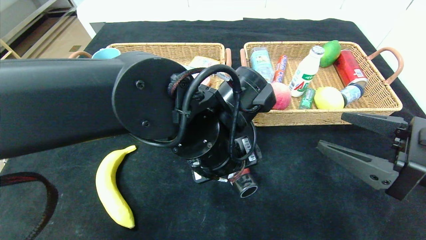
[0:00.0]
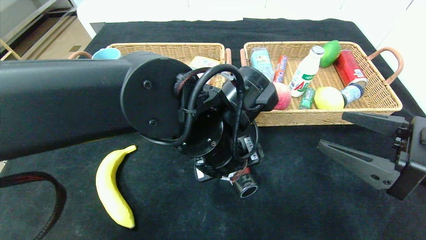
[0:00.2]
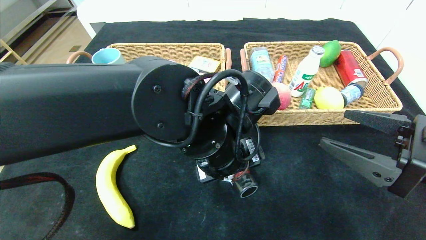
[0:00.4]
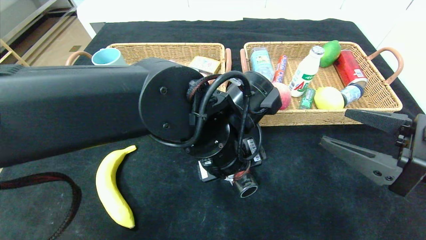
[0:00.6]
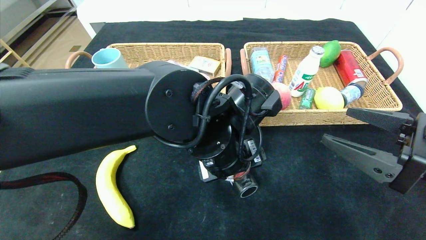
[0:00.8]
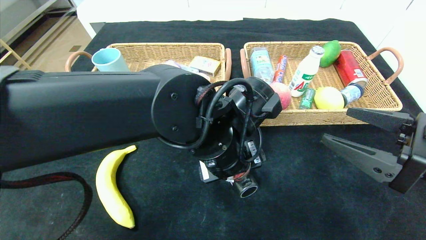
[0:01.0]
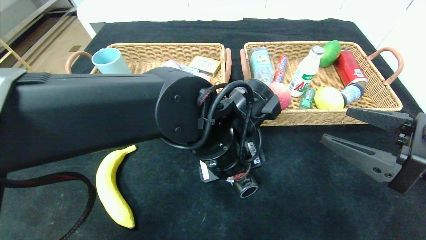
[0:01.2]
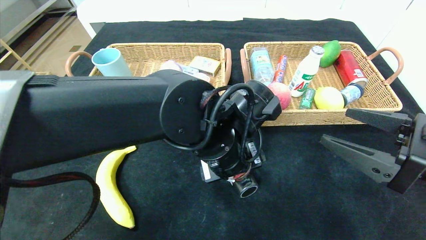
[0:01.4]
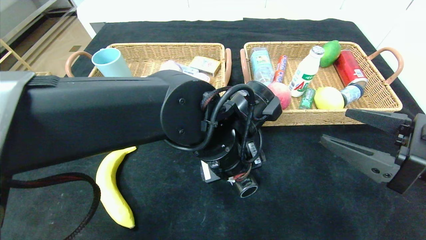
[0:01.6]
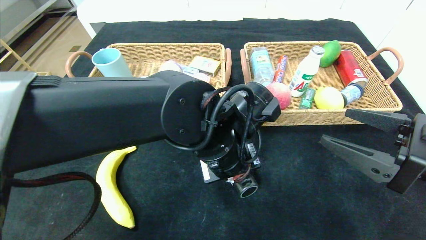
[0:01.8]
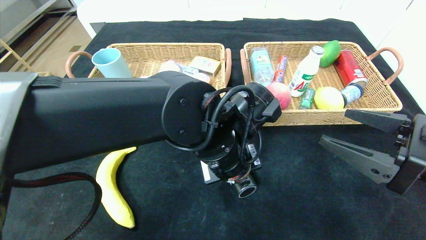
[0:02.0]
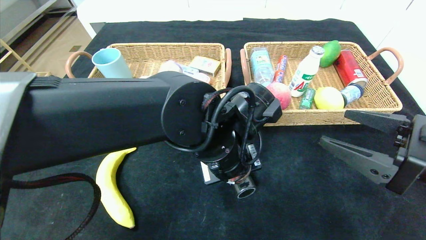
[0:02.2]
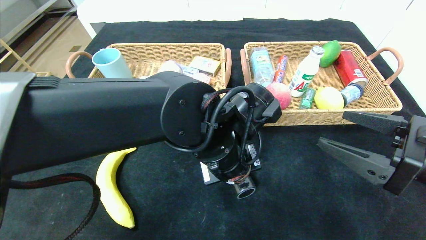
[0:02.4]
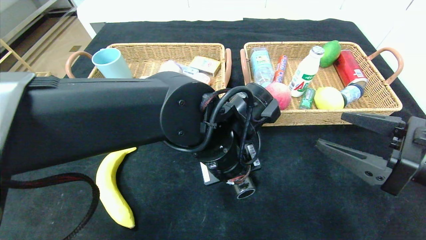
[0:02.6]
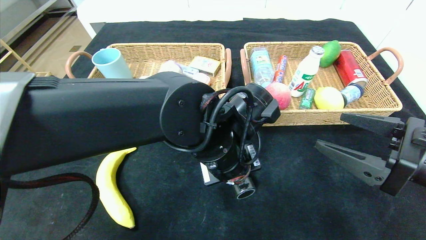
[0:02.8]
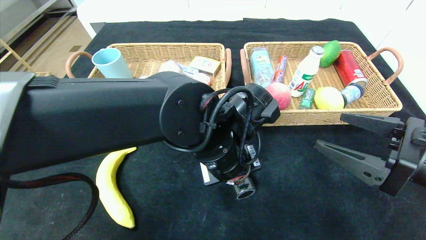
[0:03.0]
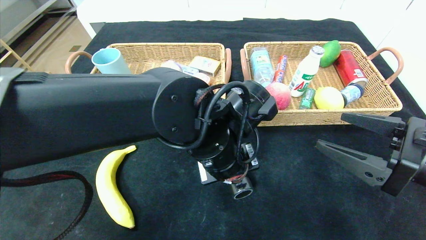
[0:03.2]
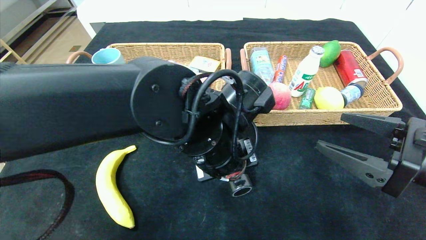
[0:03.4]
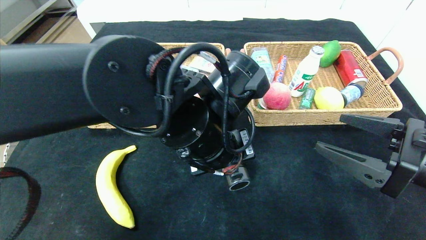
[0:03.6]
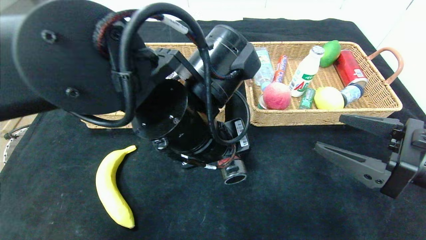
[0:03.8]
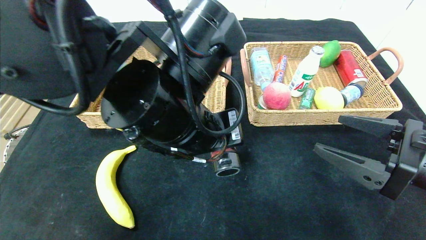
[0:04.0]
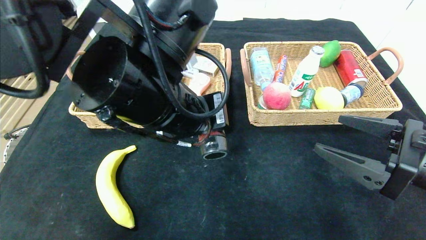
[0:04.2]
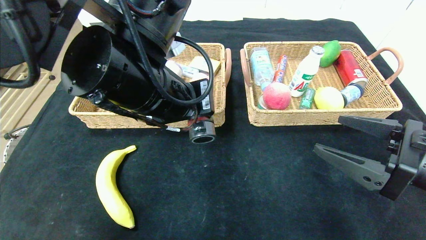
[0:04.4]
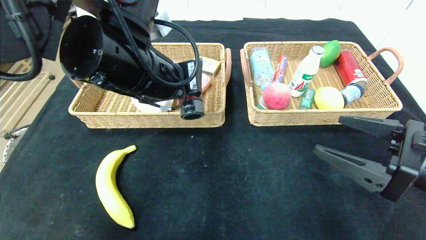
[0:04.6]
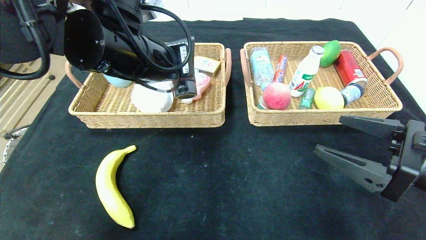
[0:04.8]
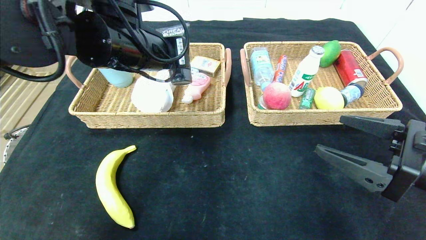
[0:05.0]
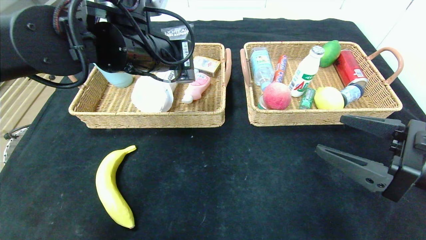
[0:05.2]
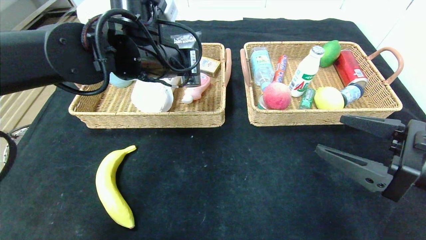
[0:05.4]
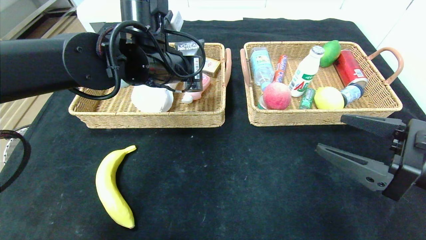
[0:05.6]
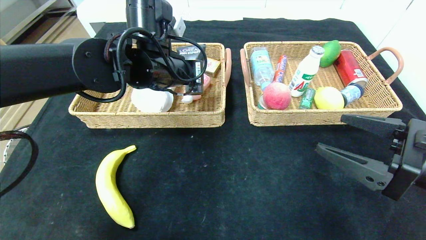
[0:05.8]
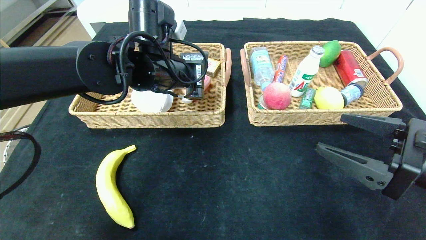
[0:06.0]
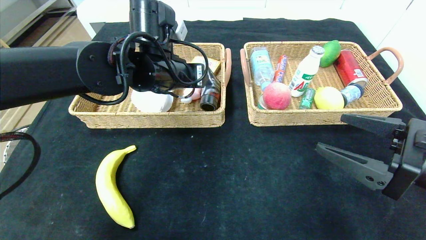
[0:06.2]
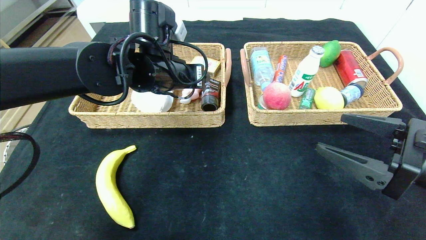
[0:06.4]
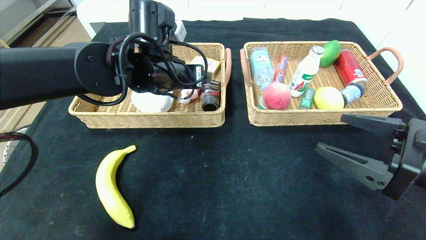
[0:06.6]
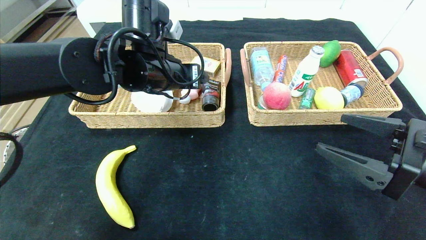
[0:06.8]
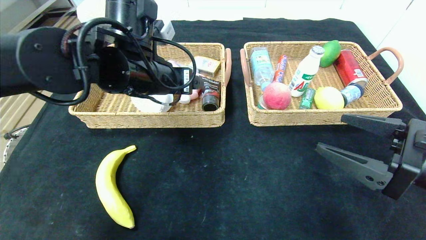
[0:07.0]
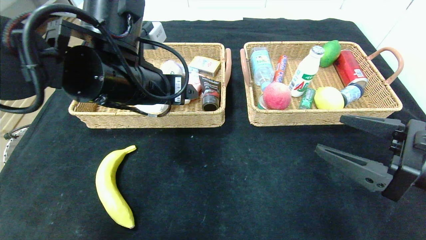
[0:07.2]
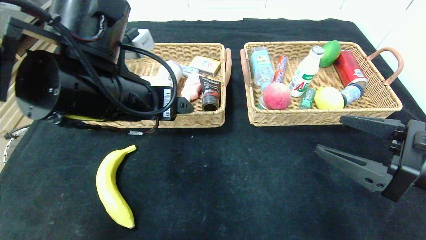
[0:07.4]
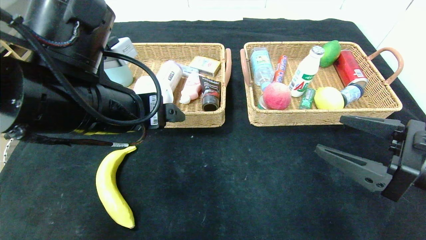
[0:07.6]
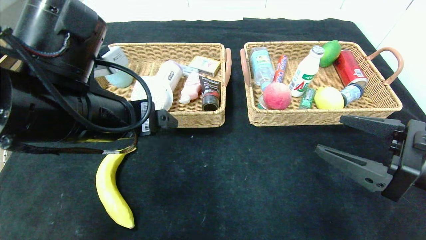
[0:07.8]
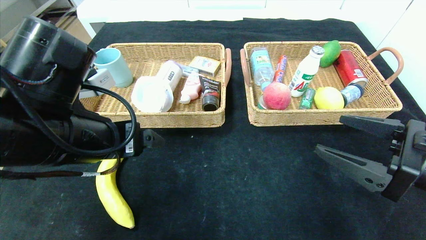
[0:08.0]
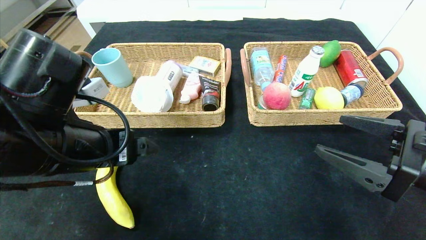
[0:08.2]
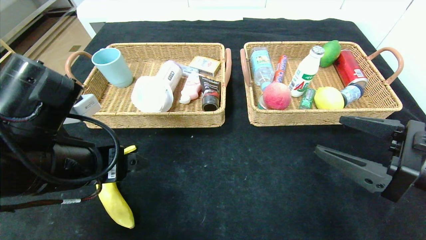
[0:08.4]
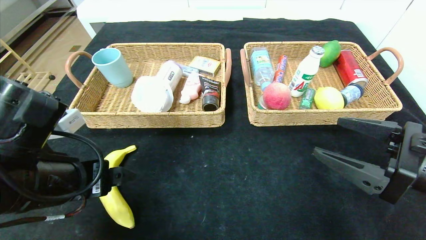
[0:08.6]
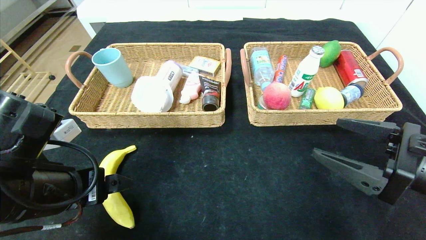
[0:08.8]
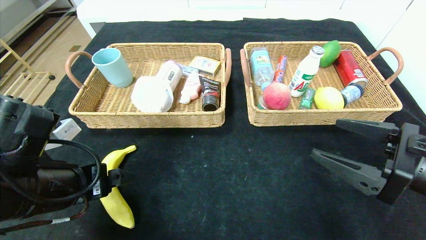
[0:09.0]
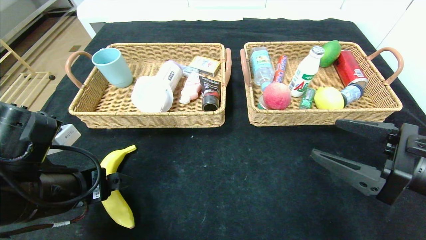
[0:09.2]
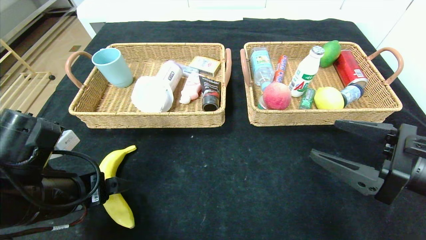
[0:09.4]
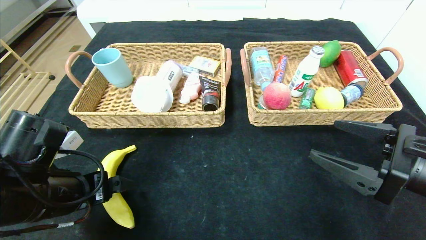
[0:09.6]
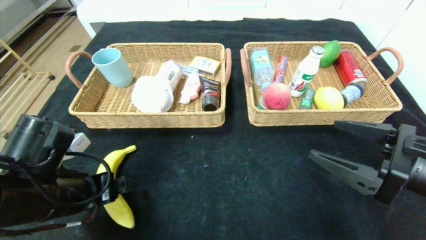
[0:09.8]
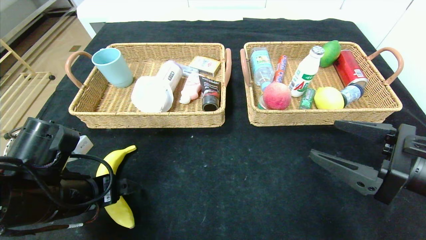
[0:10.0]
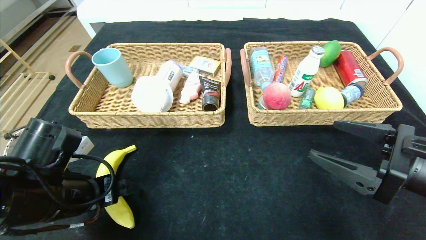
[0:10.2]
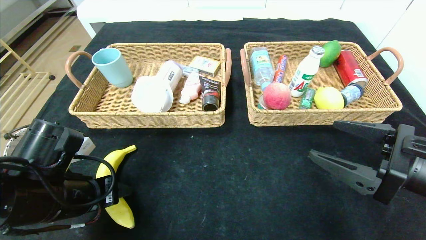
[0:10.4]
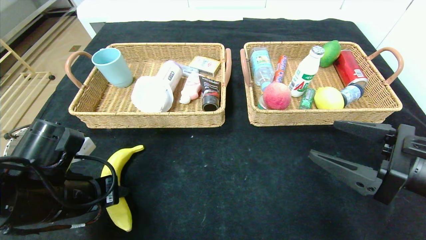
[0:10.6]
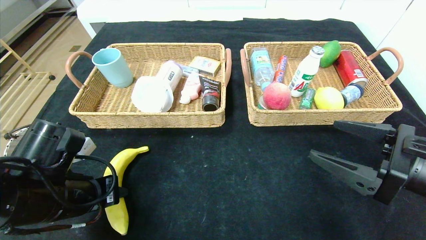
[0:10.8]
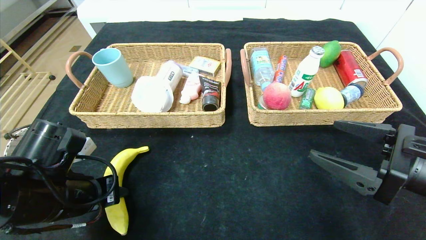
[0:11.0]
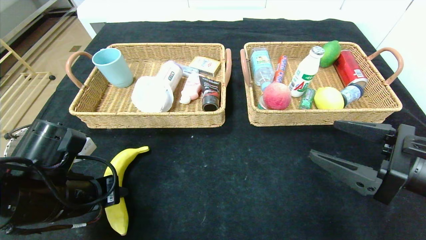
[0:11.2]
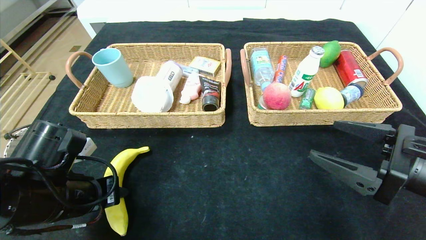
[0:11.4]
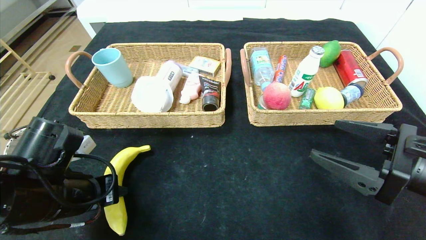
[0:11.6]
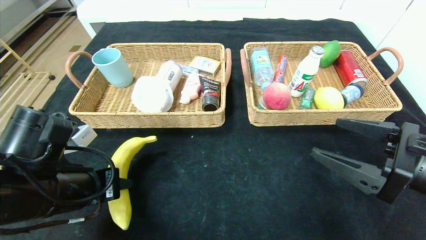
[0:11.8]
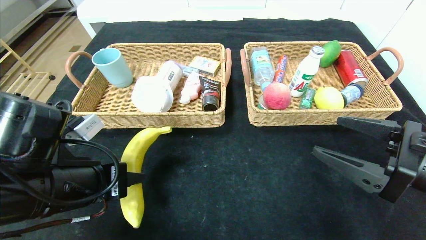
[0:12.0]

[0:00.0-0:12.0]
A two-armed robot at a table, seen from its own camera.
Step, 0:00.0 to 0:08.0: Pick up the soft cleanser and put it in the left basket.
0:01.6 to 0:03.0: The left gripper closes its fingers.
0:03.0 to 0:04.4: The left gripper shifts some 15 cm upward and to the left.
0:04.4 to 0:06.0: The left gripper moves forward, about 10 cm.
0:06.0 to 0:07.6: The left gripper is displaced backward by roughly 15 cm, and opens up.
0:07.6 to 0:09.0: The left gripper travels downward and to the left by some 10 cm.
0:09.0 to 0:10.4: The left gripper closes.
0:10.4 to 0:12.0: The left gripper ends up about 5 cm from where it was.

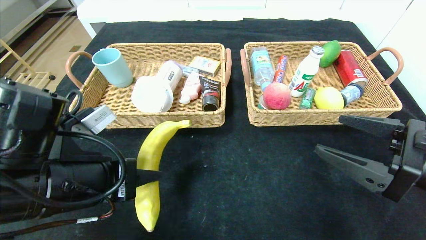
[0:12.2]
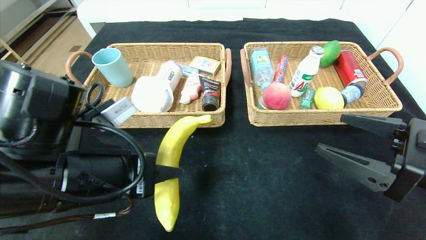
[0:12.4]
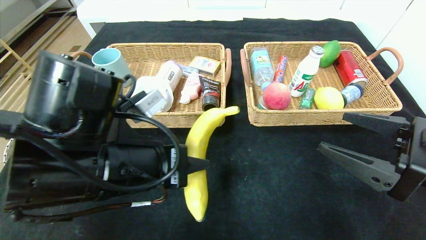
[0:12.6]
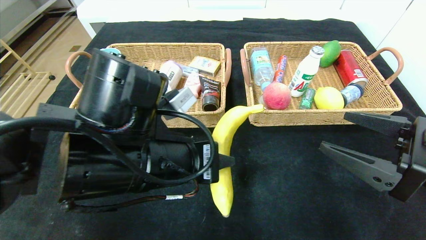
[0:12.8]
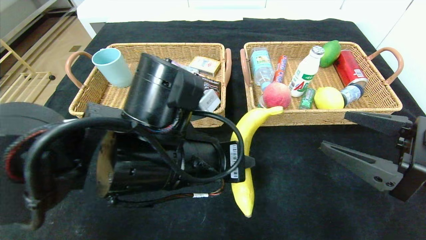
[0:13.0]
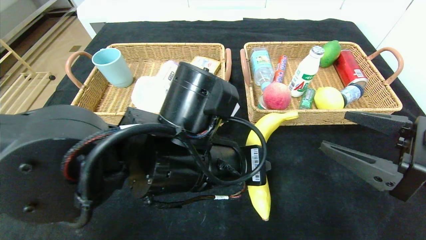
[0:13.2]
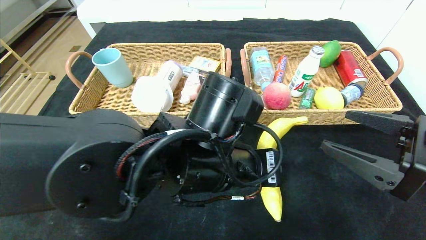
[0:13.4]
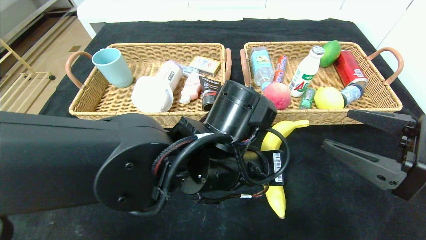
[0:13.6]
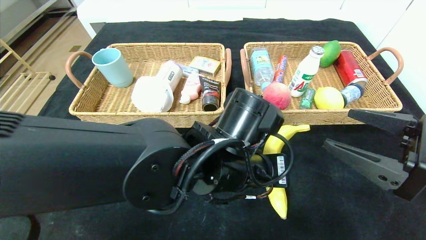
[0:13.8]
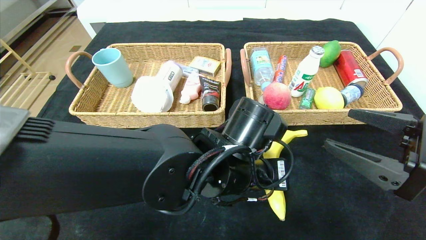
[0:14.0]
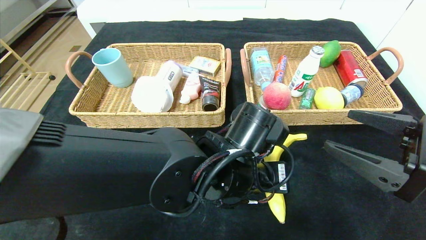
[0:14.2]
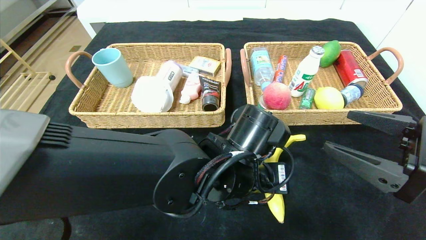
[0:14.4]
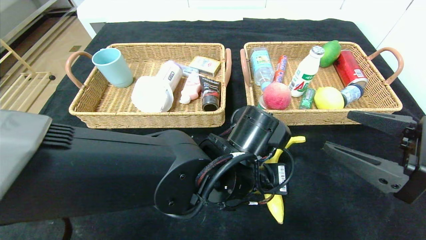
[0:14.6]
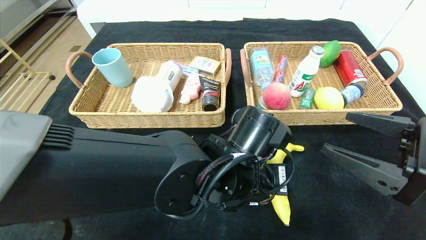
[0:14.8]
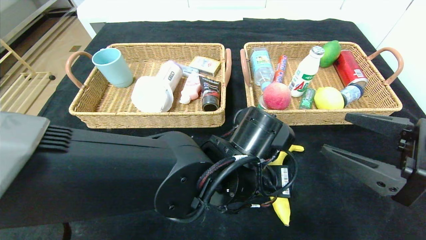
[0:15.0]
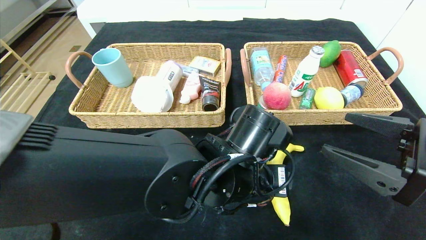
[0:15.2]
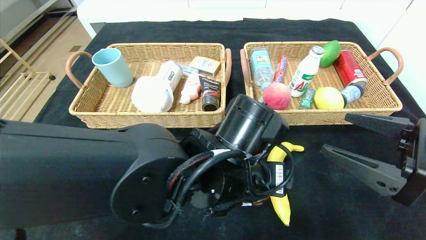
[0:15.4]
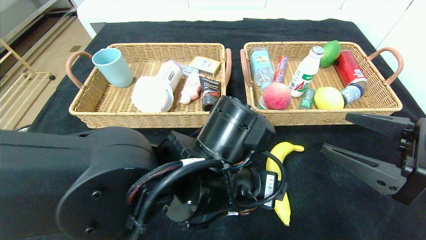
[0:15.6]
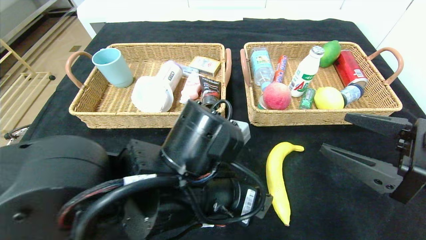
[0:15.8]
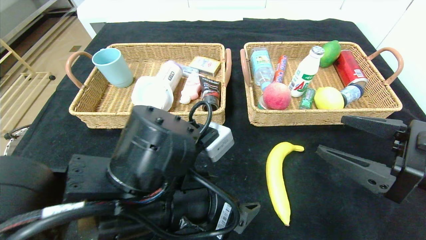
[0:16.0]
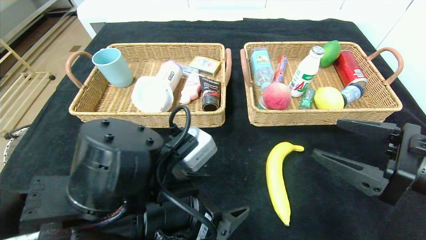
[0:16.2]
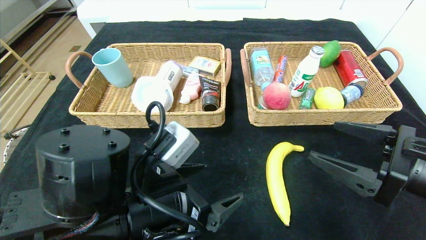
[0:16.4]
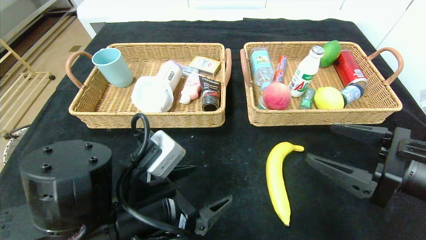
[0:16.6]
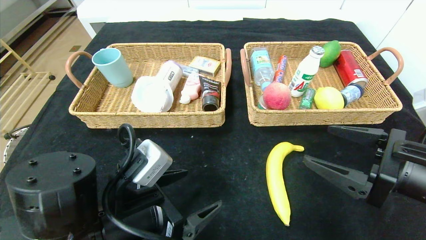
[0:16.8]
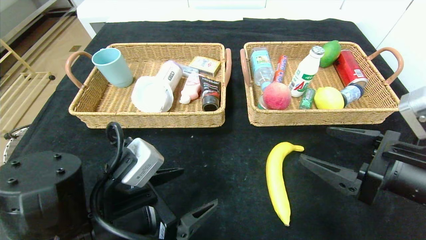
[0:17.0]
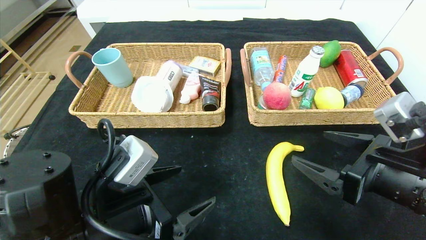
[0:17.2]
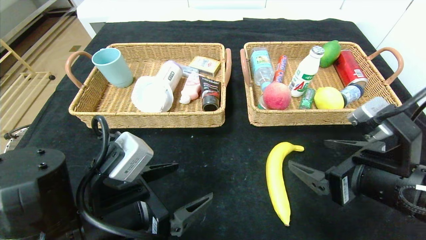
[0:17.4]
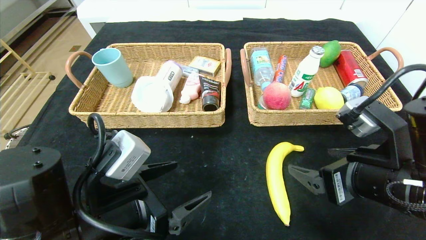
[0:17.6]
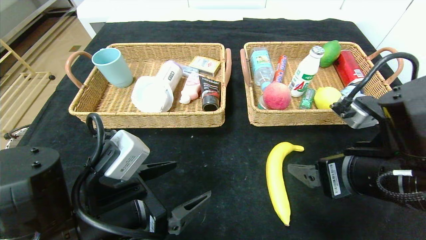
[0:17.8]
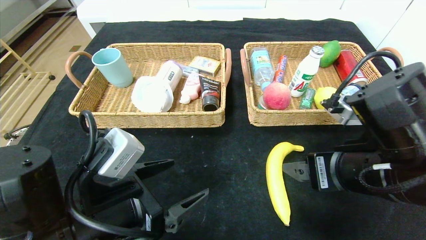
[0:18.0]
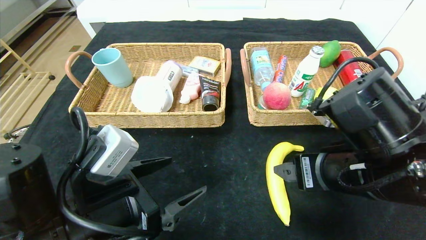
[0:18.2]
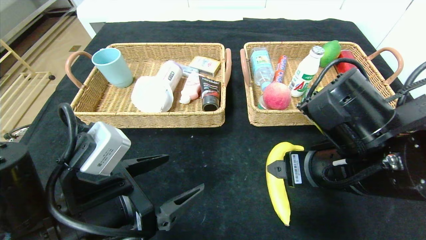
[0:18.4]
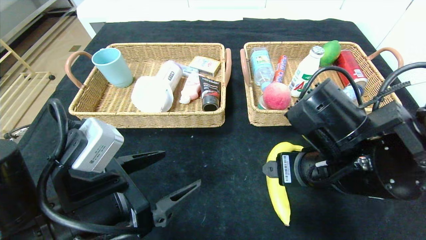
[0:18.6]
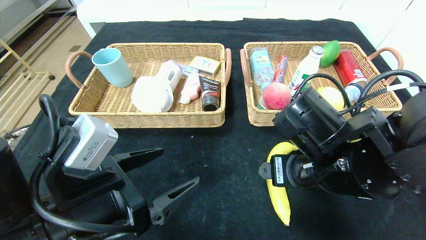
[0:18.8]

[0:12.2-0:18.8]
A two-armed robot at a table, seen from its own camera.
Step, 0:12.2 to 0:15.8: Place the banana in the center of the table.
0:12.2 to 0:13.8: The left gripper heads to the right, covering approximately 20 cm.
0:13.8 to 0:15.4: The left gripper opens its fingers.
0:15.4 to 0:17.2: The left gripper goes about 15 cm to the left.
0:17.2 to 0:18.8: The right gripper shifts about 10 cm to the left.
